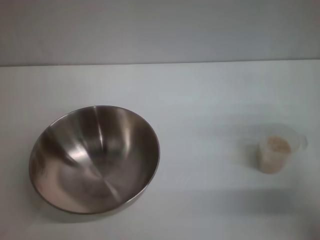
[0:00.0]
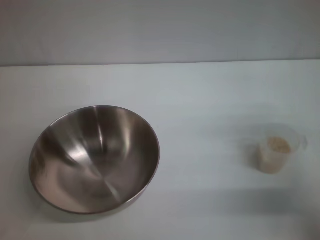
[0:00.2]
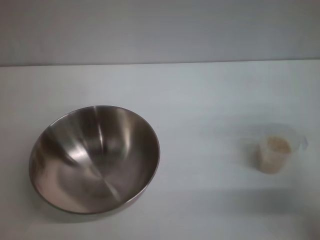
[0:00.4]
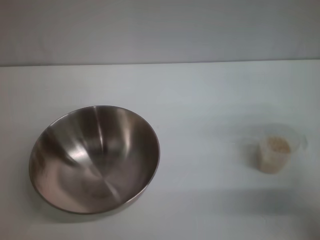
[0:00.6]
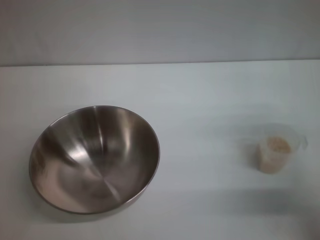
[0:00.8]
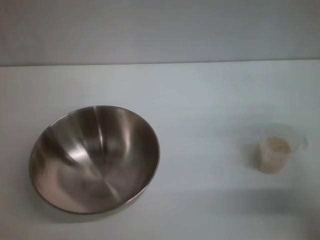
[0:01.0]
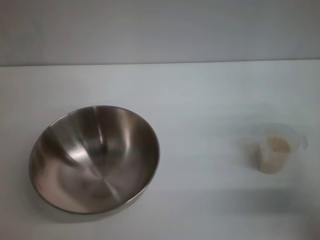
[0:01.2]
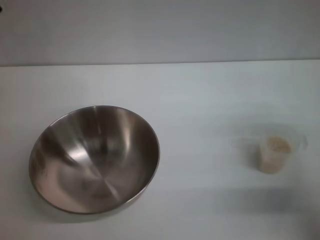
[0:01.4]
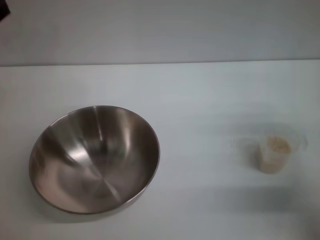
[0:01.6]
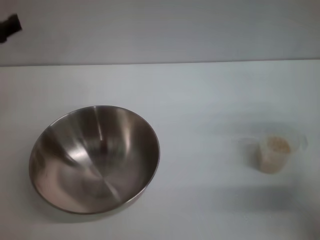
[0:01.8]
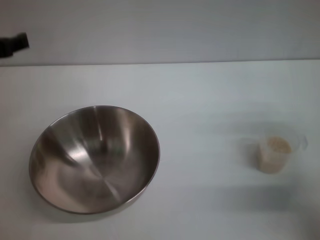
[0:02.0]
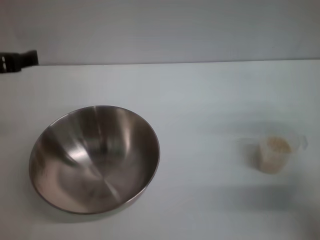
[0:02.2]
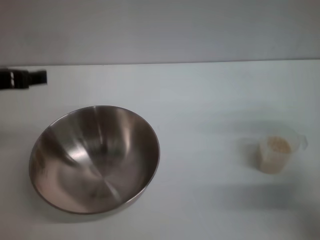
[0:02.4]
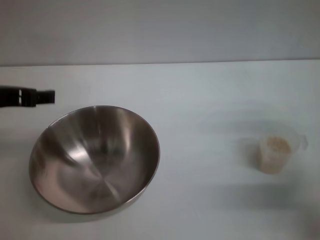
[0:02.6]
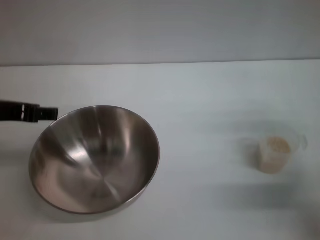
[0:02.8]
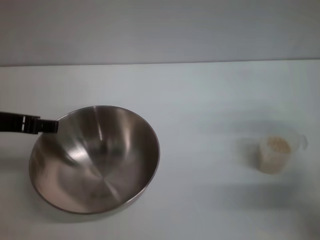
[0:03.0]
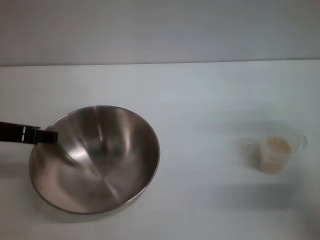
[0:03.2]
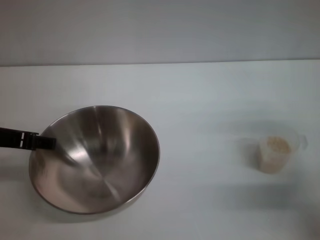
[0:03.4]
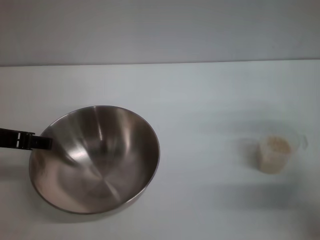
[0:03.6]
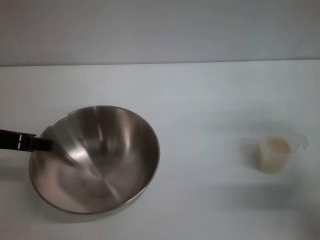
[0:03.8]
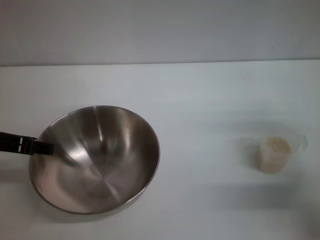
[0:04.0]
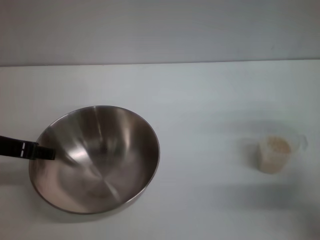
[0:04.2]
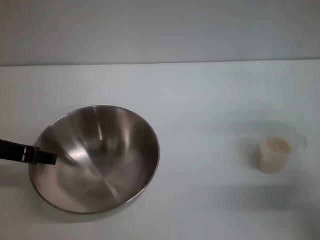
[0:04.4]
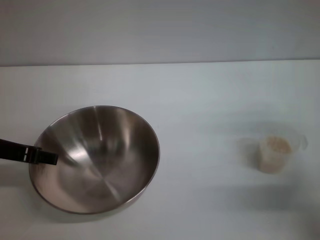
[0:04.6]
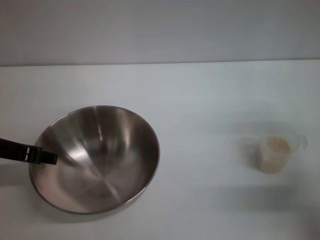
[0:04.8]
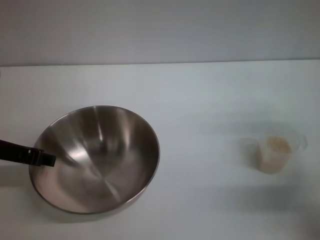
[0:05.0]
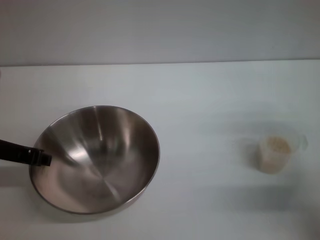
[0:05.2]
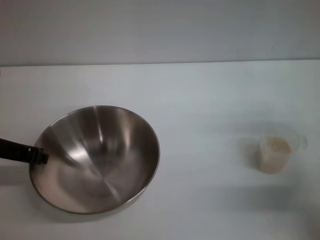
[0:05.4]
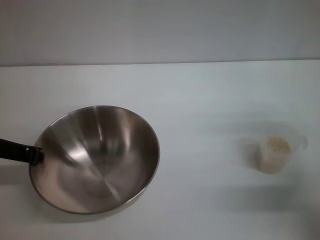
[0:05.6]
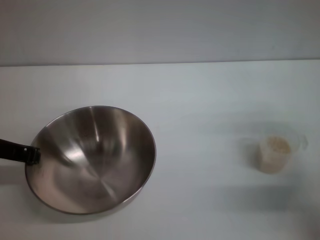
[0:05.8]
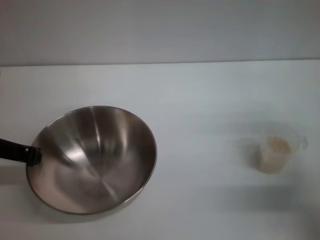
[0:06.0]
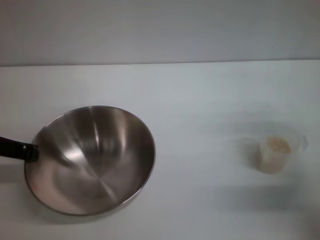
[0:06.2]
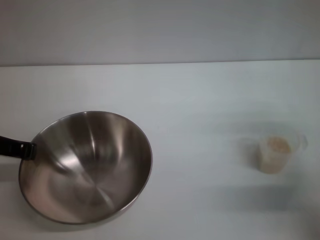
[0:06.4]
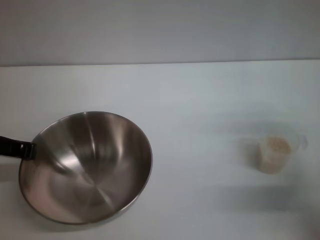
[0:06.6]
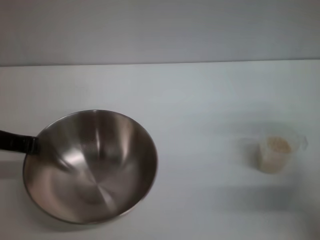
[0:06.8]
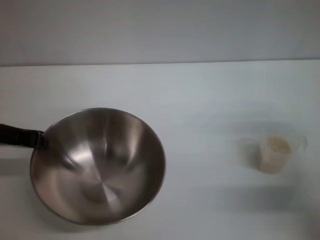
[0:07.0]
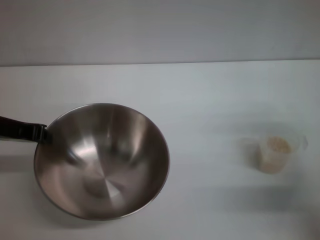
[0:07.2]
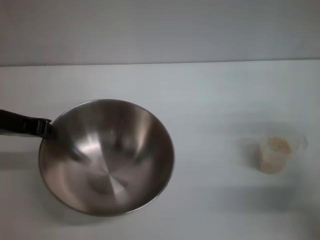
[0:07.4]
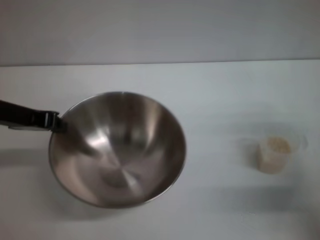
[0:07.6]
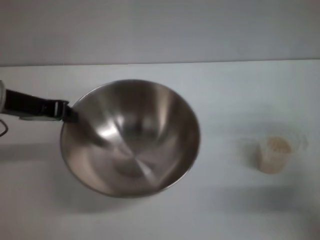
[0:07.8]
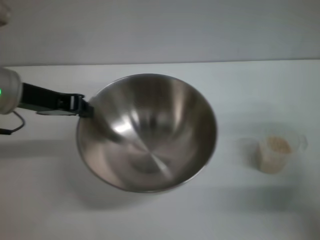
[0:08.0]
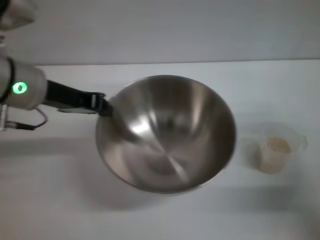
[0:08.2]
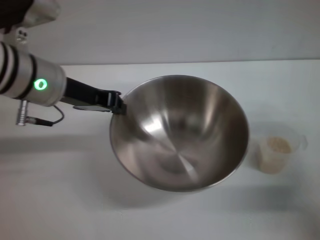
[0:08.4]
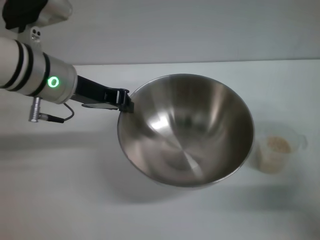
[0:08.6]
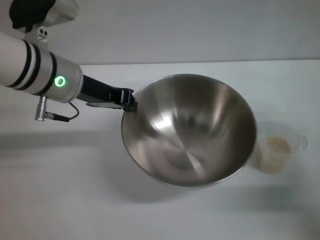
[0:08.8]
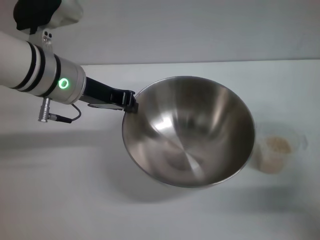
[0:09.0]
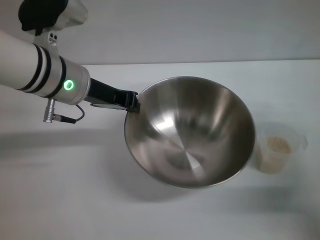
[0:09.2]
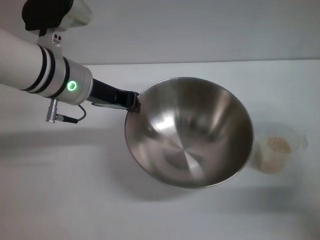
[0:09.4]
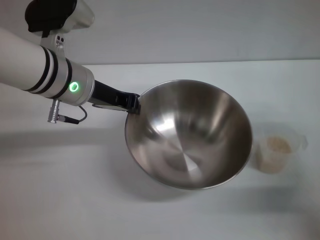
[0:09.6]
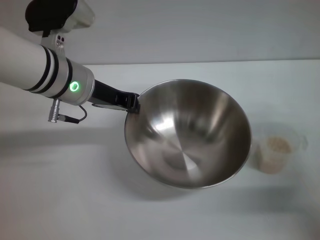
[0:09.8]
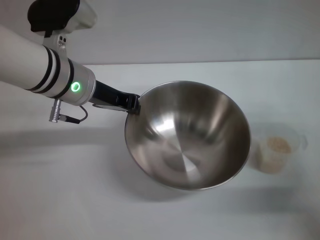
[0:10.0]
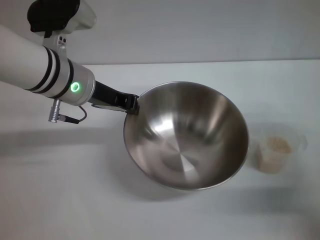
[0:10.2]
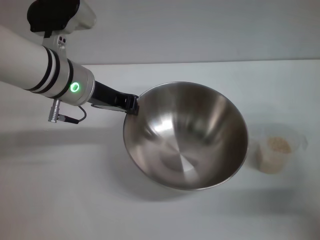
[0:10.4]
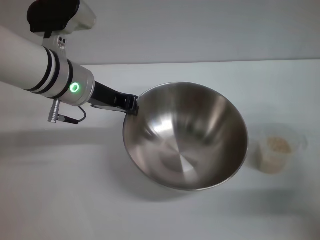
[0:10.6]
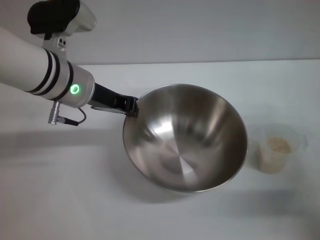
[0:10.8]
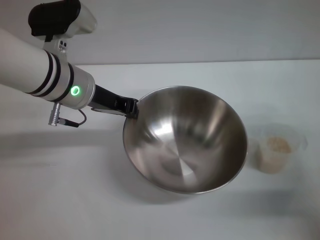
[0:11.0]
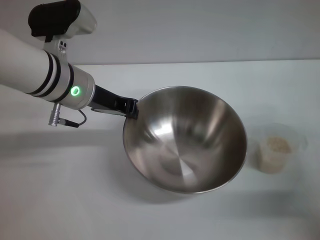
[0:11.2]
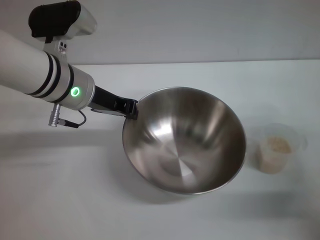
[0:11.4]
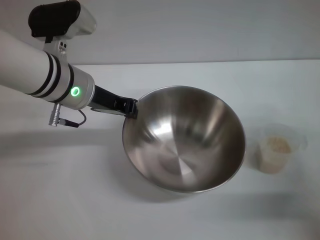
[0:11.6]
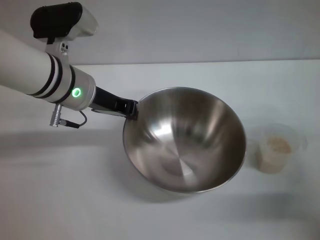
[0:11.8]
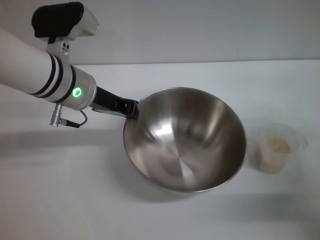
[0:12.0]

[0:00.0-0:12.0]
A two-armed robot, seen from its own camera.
Task of the whole recording: Place the bowl in the middle of the table with one hand and pour the rice from the grain cup into it with the other hand.
Step, 0:00.0 to 0:07.8: Pick up the bowl with the left gripper.
0:01.6 to 0:03.0: The left gripper changes place by about 5 cm.
0:03.0 to 0:04.4: There are only small adjustments of the grippers.
0:04.4 to 0:06.0: The left gripper closes up.
0:06.0 to 0:07.6: There are only small adjustments of the grippers.
0:07.6 to 0:09.0: The left gripper heads to the right, covering some 10 cm.
0:09.0 to 0:10.4: The grippers move only a little.
0:10.4 to 0:12.0: Both grippers stay about where they are.

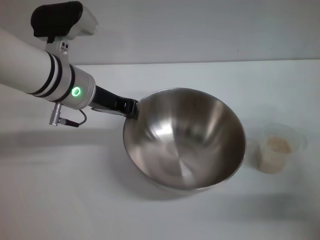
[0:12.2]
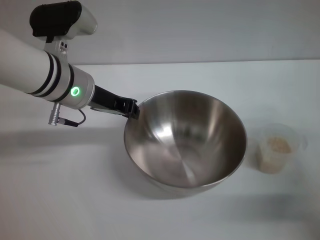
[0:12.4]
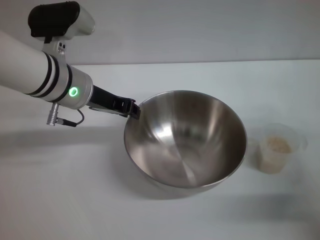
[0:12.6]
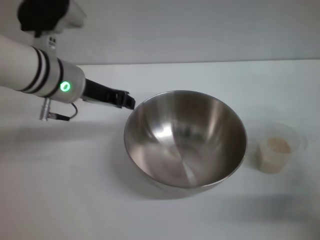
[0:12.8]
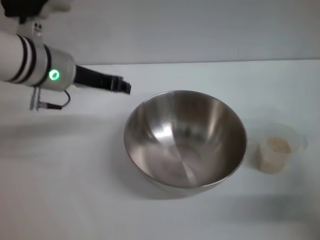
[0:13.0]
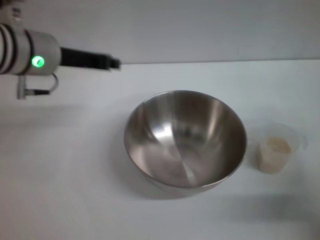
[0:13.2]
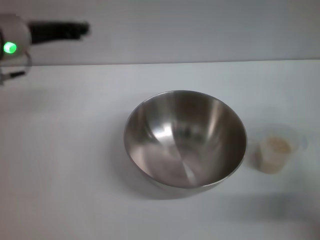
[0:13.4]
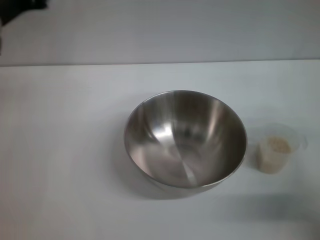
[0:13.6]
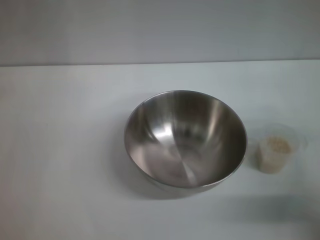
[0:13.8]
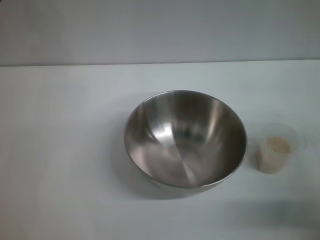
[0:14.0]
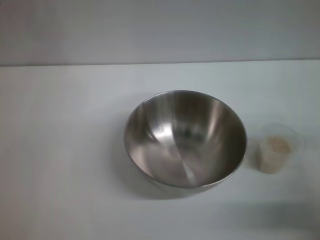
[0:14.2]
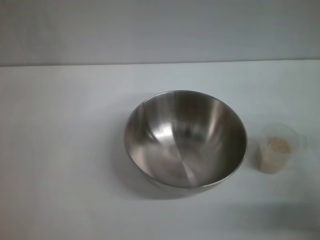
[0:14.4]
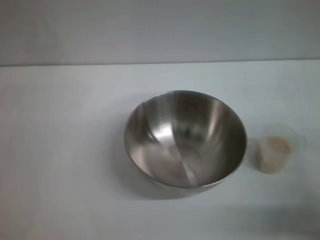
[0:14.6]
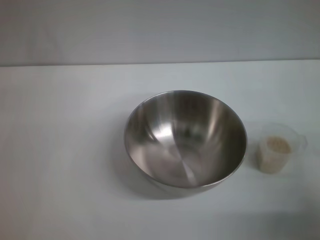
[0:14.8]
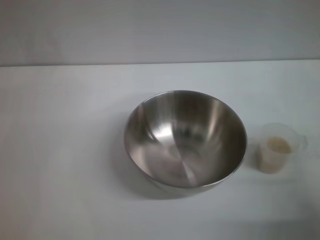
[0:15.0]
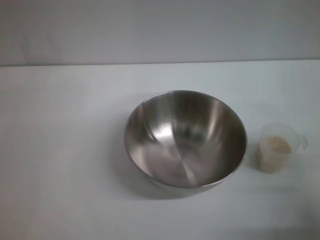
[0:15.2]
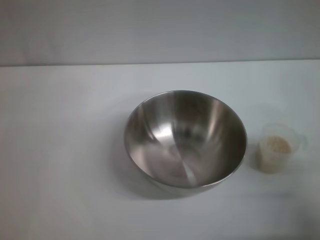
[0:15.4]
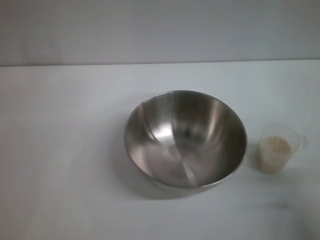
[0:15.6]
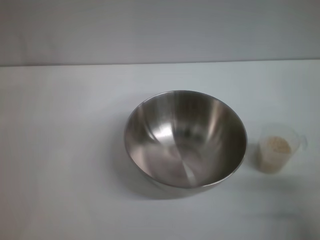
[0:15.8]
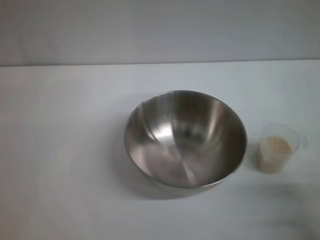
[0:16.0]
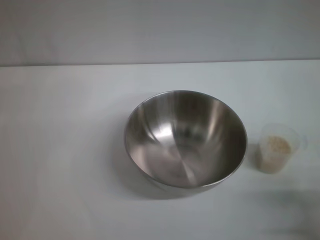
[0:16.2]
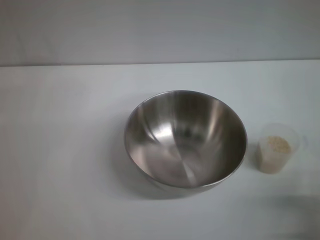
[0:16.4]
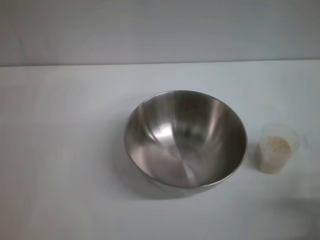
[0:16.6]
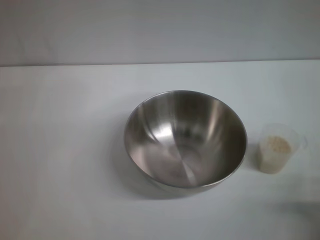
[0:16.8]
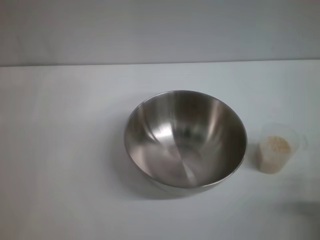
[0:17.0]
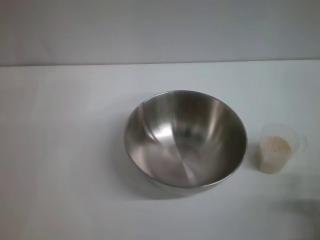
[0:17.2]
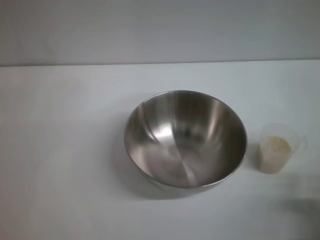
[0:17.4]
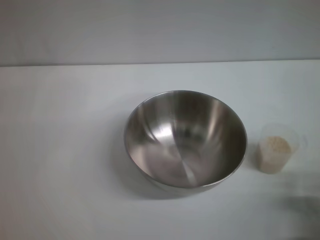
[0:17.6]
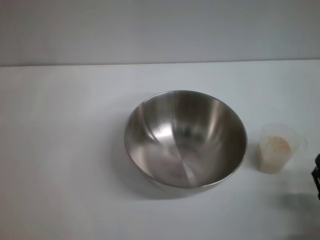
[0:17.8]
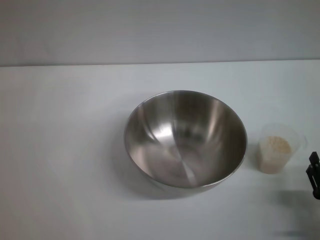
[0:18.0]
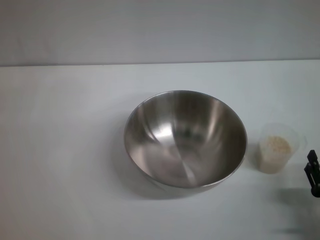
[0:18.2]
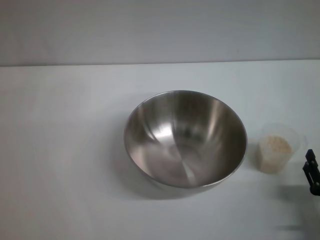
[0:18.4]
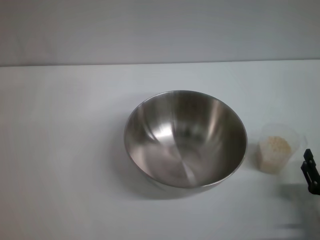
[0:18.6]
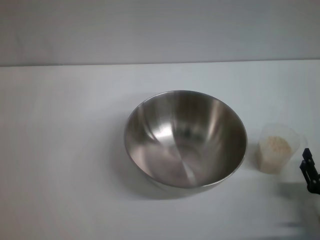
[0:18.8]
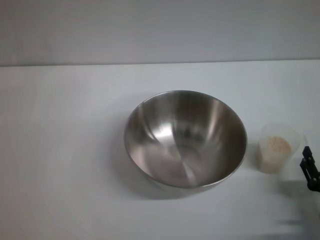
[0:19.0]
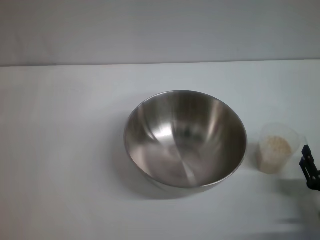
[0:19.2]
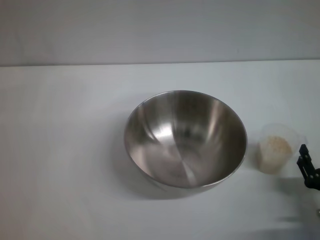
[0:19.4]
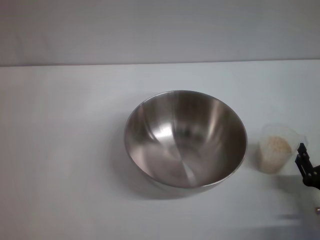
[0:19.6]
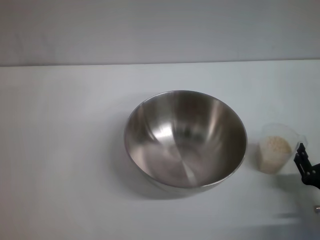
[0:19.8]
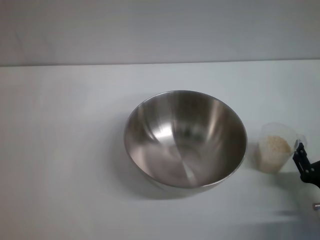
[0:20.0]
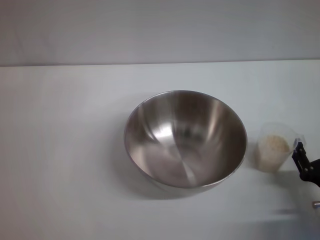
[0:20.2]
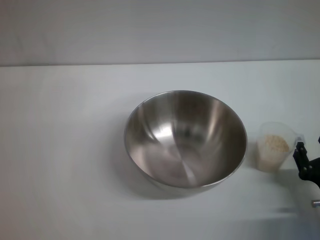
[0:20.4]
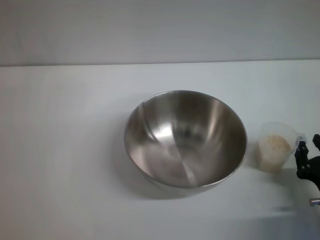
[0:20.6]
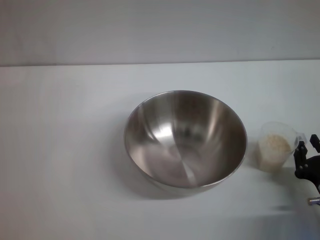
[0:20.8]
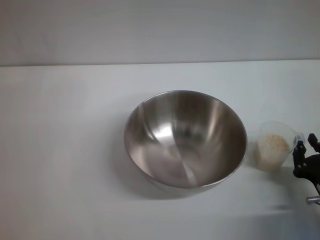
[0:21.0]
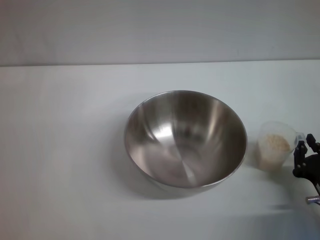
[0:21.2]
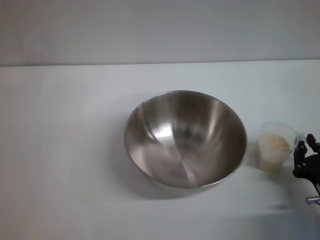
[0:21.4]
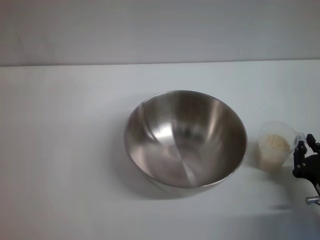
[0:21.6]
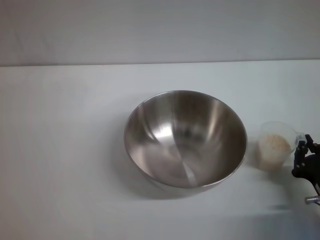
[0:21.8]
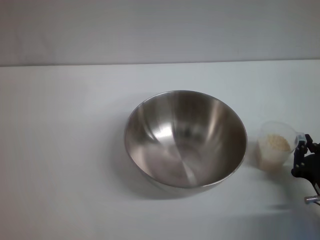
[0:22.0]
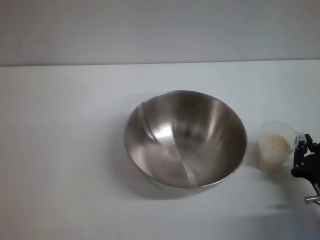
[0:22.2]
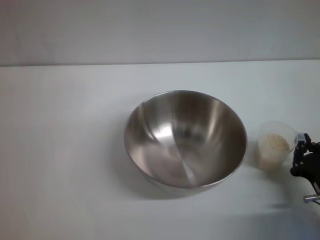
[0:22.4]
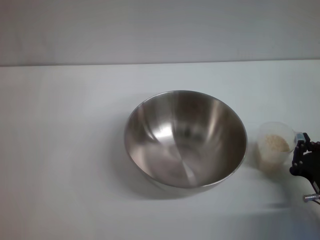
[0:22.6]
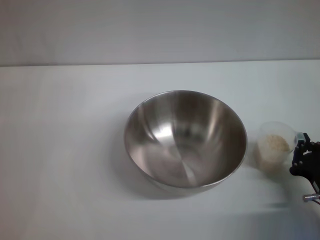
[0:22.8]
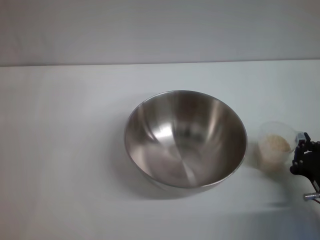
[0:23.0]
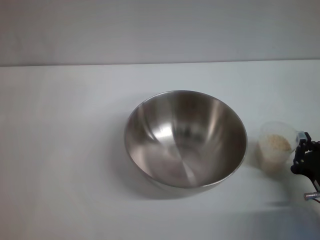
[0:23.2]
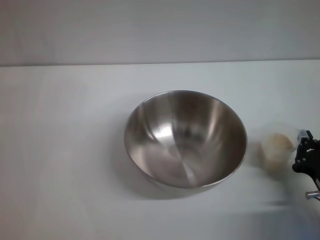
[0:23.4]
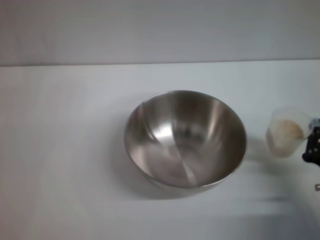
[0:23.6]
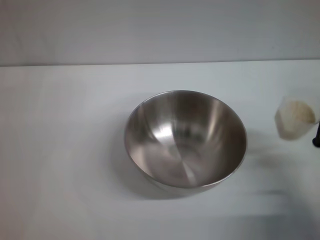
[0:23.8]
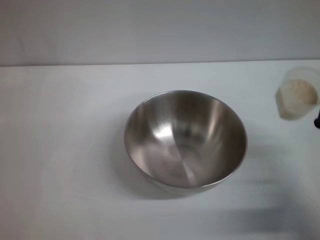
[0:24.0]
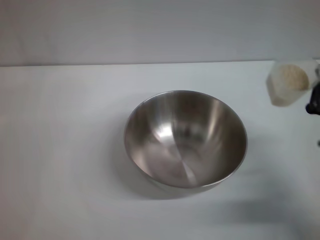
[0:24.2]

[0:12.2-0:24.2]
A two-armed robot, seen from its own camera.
Task of the whole recording: Place the bowl in the middle of the table with one hand and pour the rice from the grain cup into it with the other hand.
Step, 0:13.2 to 0:23.8: Pick up the cup with rice in it with the right gripper.
0:12.2 to 0:13.8: The left gripper moves to the left, some 10 cm.
0:13.8 to 0:15.2: The right gripper goes some 5 cm backward.
0:16.6 to 0:18.2: There are only small adjustments of the grippers.
0:18.2 to 0:19.8: The grippers make only small movements.
0:19.8 to 0:21.2: The right gripper closes.
0:21.2 to 0:22.6: Both grippers stay put.
0:22.6 to 0:24.2: The right gripper is displaced upward by approximately 5 cm.
